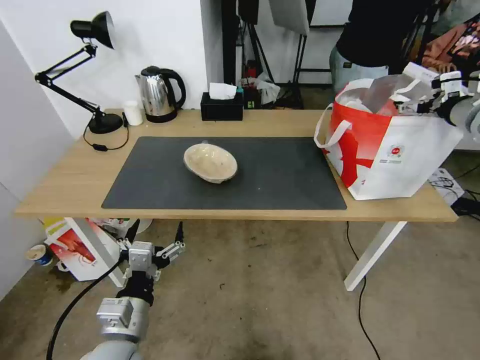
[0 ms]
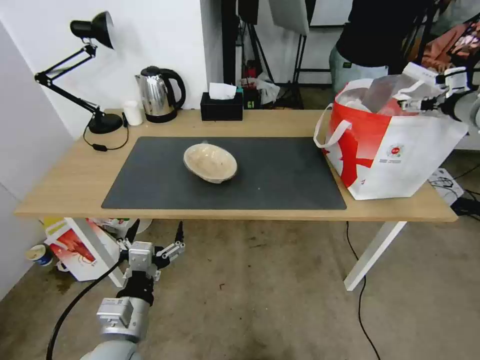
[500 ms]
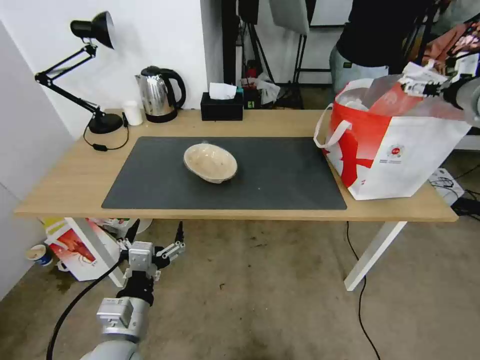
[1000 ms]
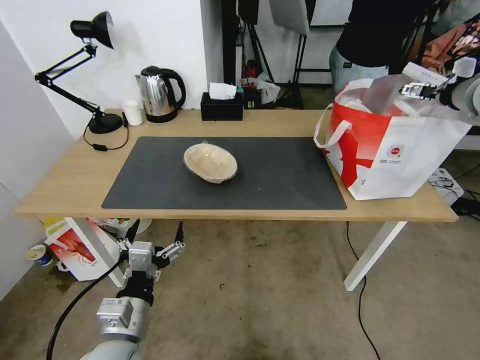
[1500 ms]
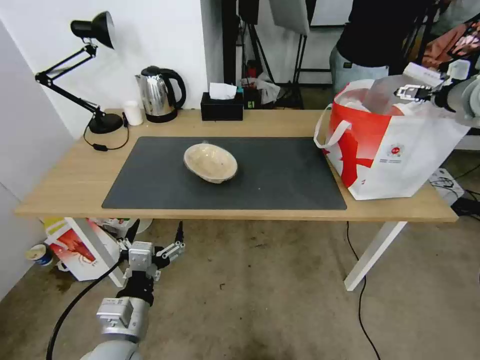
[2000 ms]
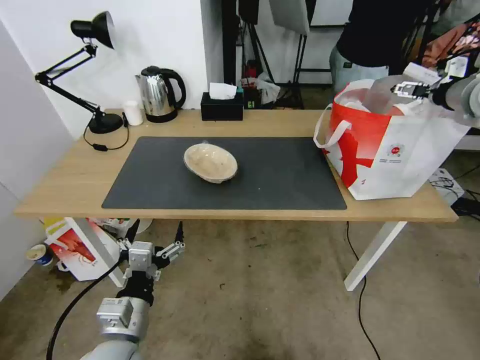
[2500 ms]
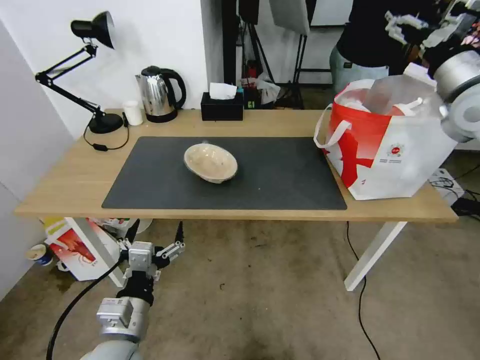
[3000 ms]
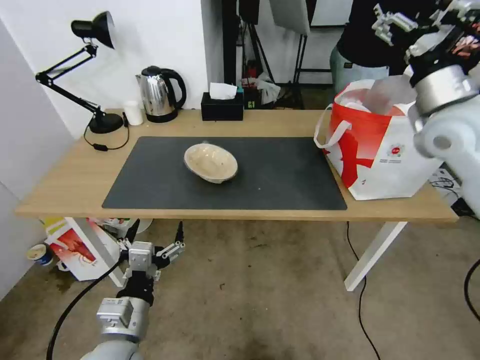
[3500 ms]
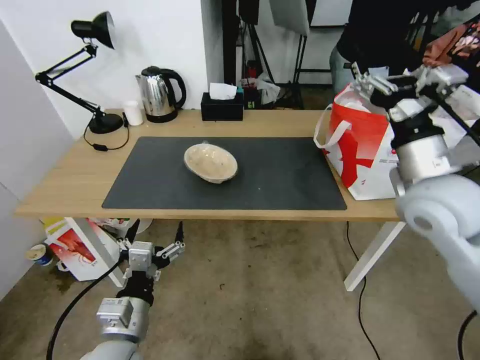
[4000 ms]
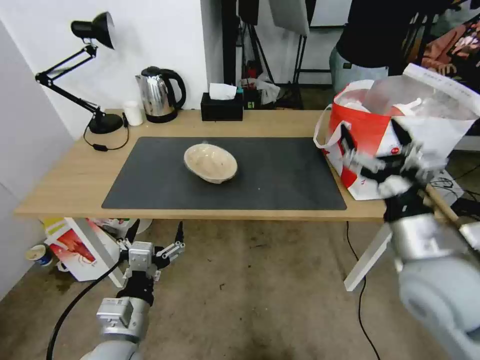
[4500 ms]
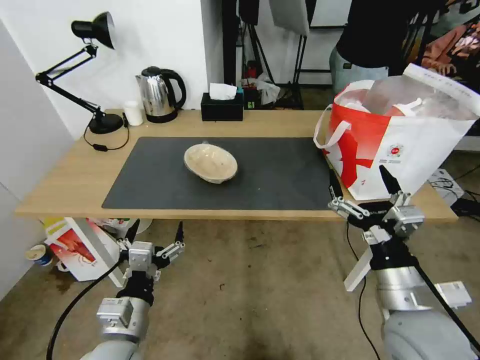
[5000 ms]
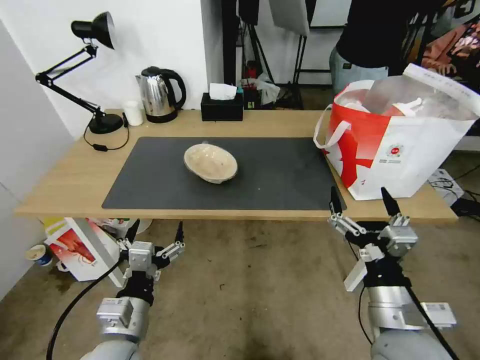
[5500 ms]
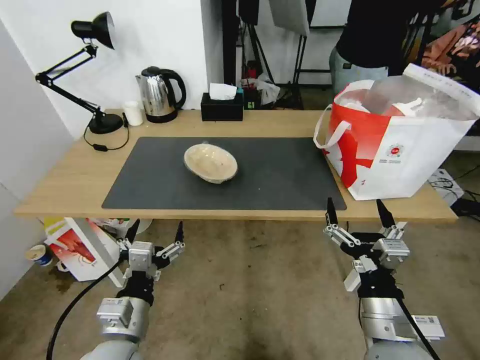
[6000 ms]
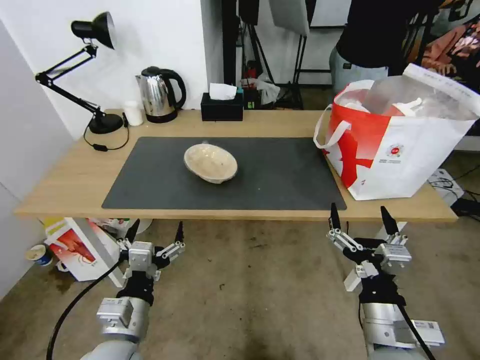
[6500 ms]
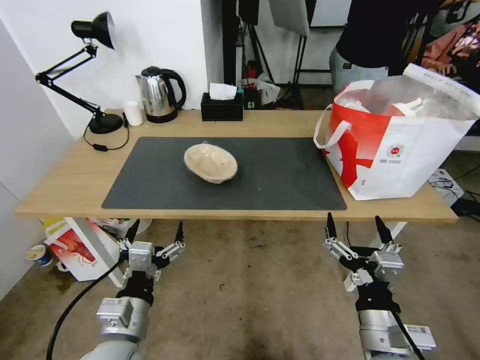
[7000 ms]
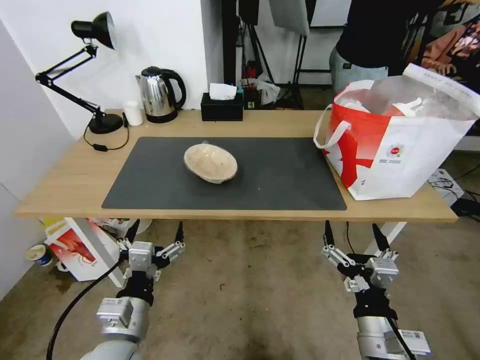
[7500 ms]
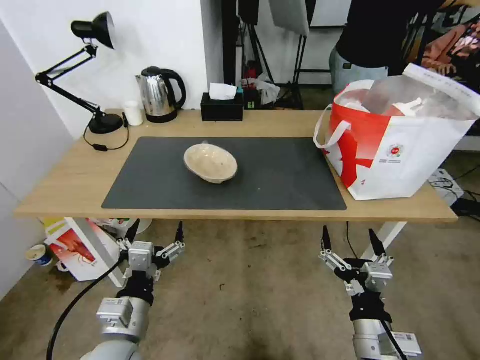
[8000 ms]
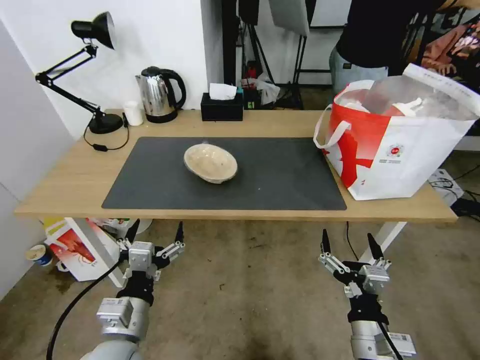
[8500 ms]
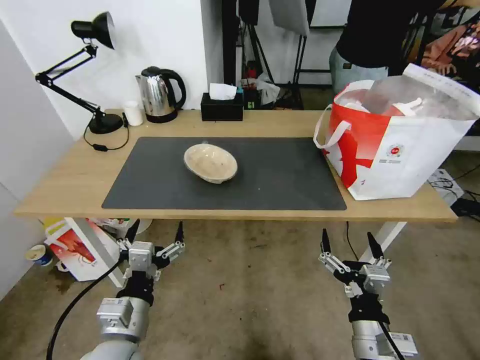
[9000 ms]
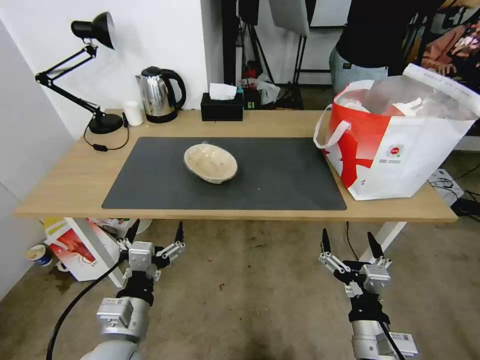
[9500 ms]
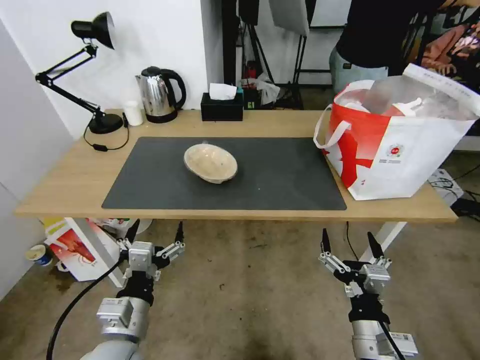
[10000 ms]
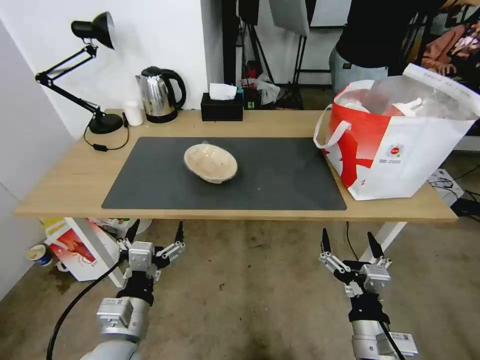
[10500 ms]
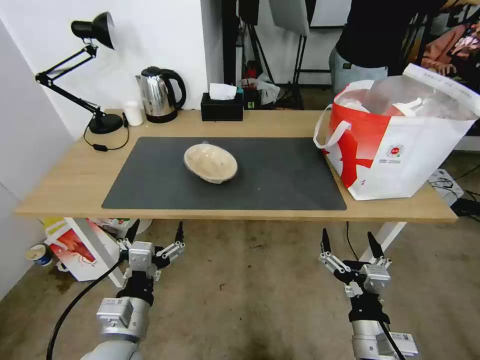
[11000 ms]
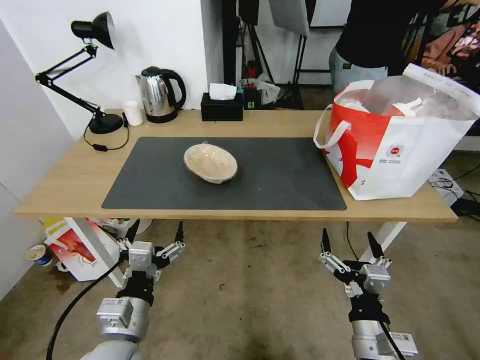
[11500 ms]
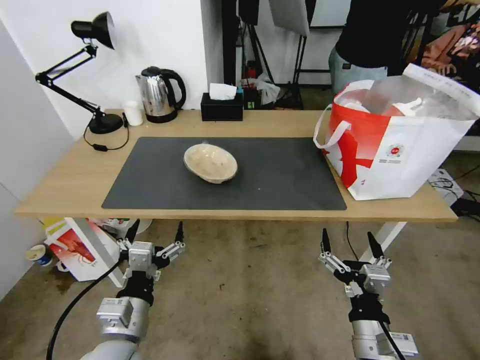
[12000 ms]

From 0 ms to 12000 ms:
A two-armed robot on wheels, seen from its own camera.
Task of the whole recording: Pick up the trash from the table and place it into the takeout bag.
From 0 ms to 2000 ms: The right gripper goes approximately 5 cm upward.
From 2000 ms to 4000 ms: The right gripper heads to the left, backward and downward, covering roughly 25 cm.
From 4000 ms to 6000 ms: The right gripper travels backward and downward by some 25 cm.
From 6000 ms to 8000 ms: The right gripper ends up roughly 5 cm from where it was.
From 8000 ms to 12000 ms: Neither gripper changes place.

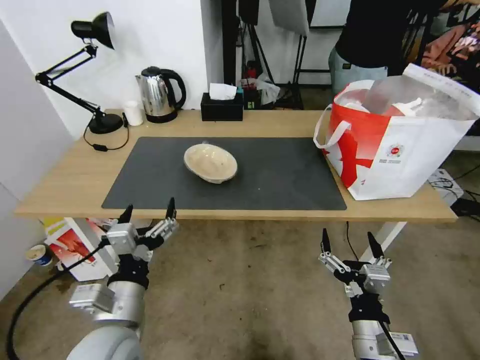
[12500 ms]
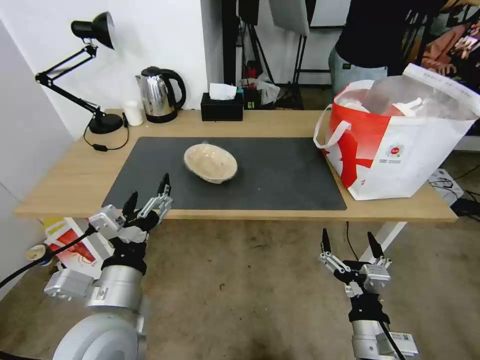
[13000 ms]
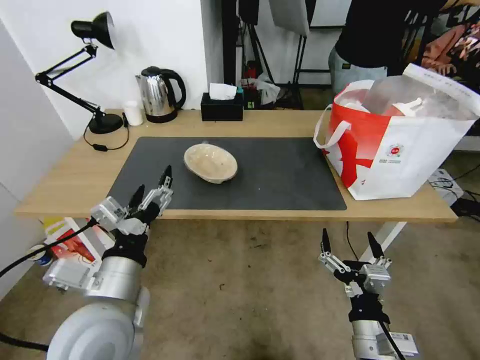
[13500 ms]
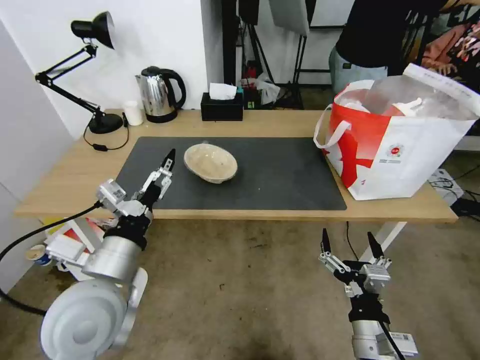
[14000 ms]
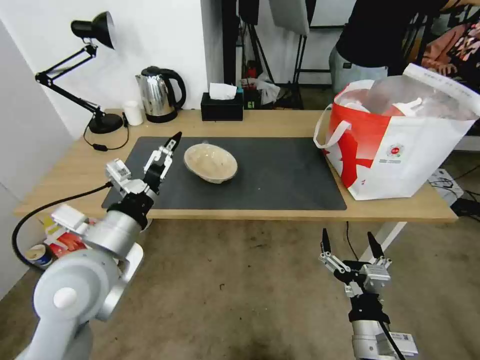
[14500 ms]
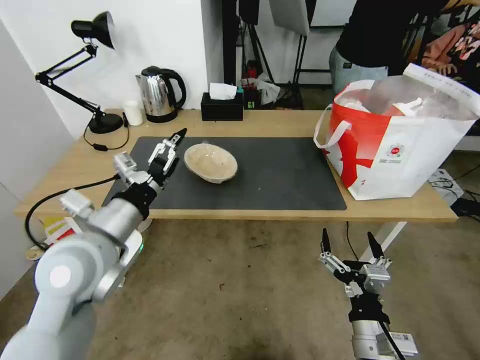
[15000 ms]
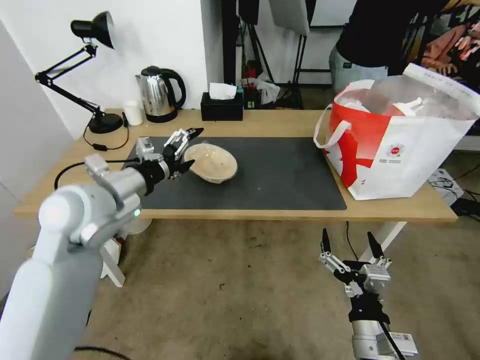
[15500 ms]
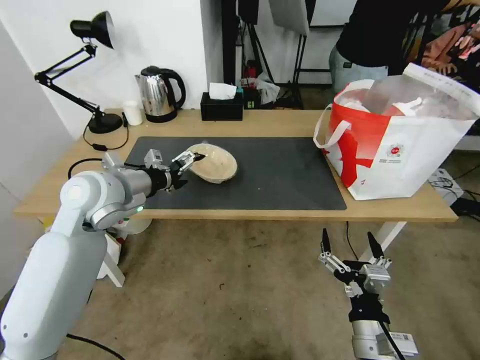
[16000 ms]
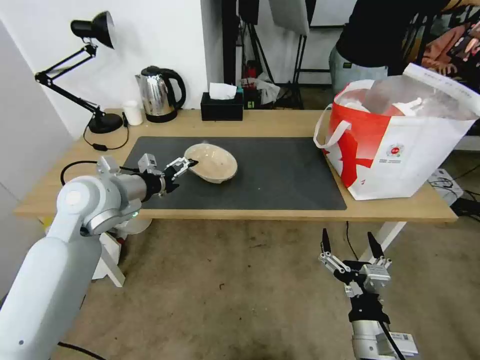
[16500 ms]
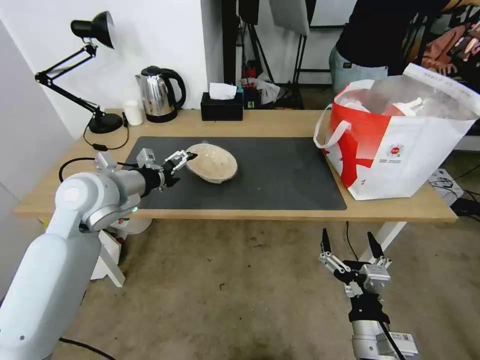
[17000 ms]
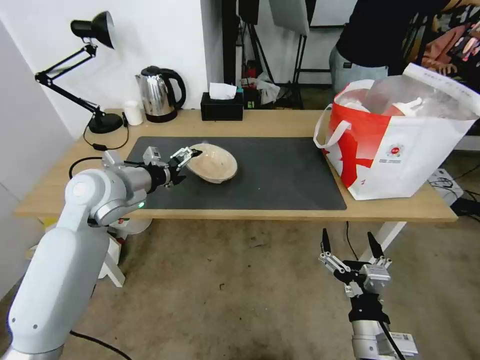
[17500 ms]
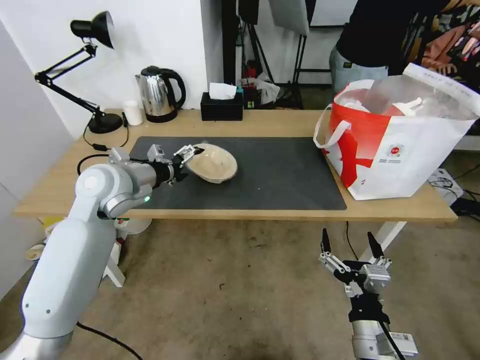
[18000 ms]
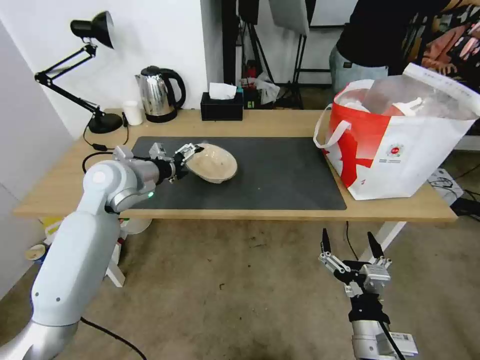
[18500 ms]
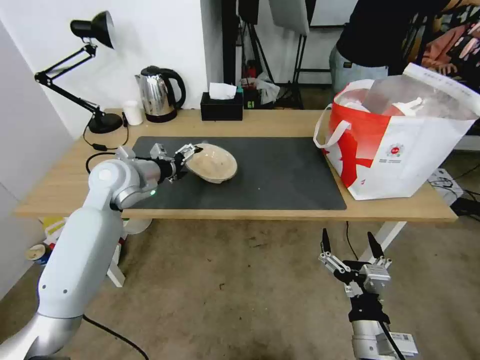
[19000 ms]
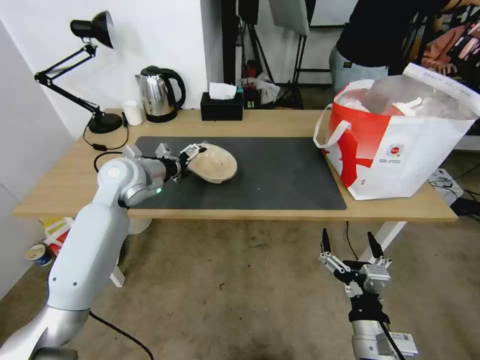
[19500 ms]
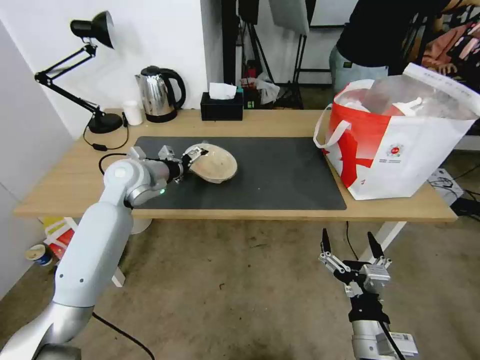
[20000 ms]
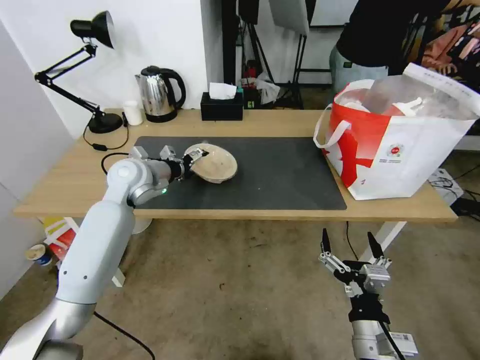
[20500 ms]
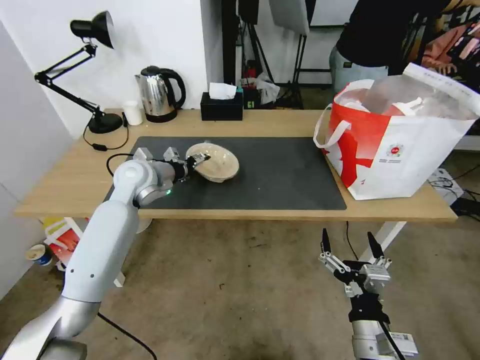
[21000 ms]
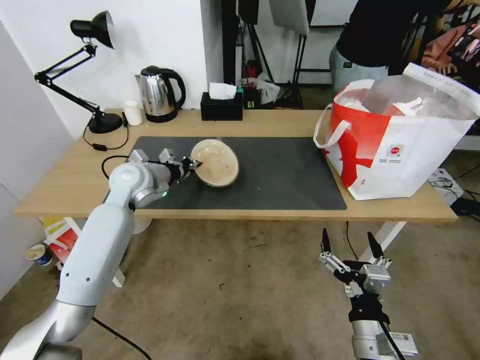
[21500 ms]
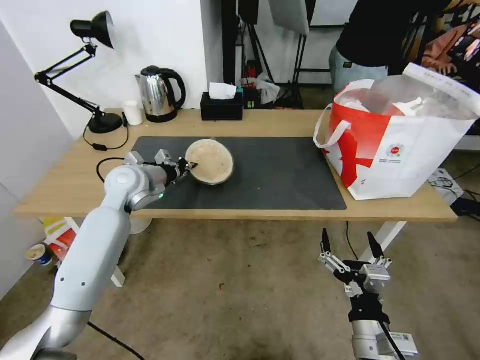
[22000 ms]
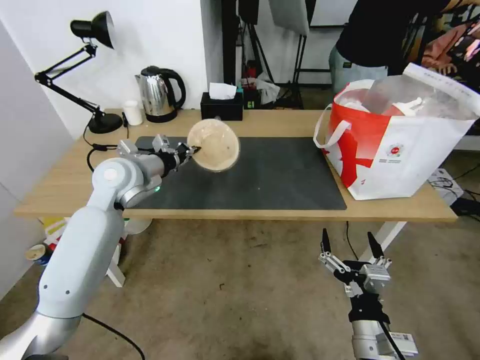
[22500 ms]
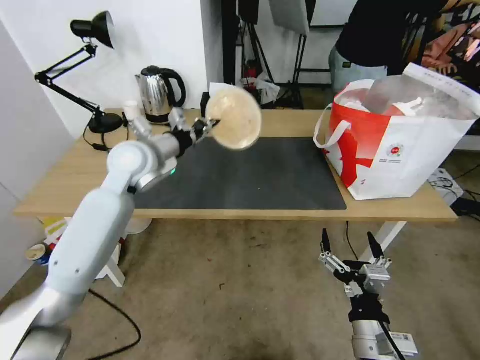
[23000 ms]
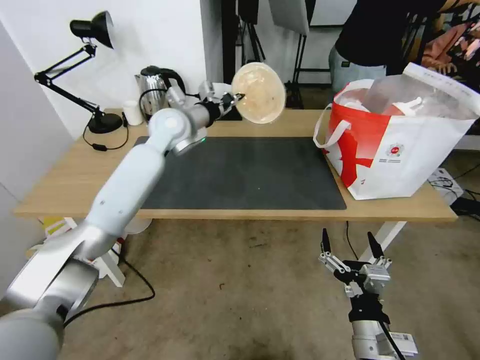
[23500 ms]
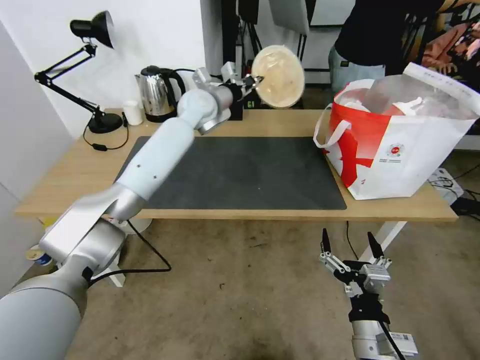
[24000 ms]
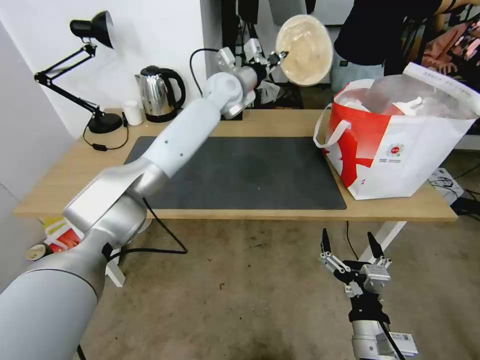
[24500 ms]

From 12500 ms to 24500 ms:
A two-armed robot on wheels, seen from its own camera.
Task of the whole recording: Pick up the trash from the table and place it into the takeout bag.
From 12500 ms to 14500 ms: The left gripper shifts some 10 cm upward and forward.
From 14500 ms to 16500 ms: The left gripper travels forward by some 15 cm.
From 16500 ms to 18500 ms: The left gripper is displaced forward by about 5 cm.
From 18500 ms to 20500 ms: The left gripper shifts by roughly 5 cm.
From 20500 ms to 22500 ms: The left gripper closes up.
From 22500 ms to 24500 ms: The left gripper heads to the right, forward and upward, covering roughly 30 cm.

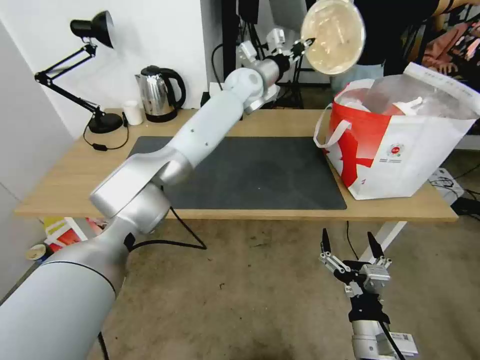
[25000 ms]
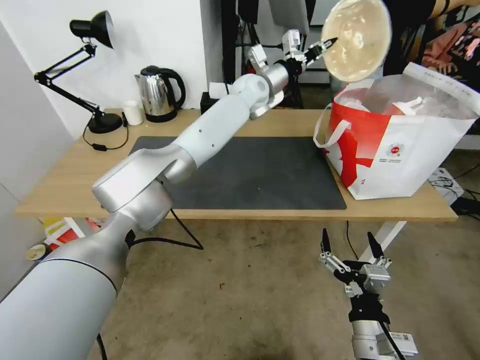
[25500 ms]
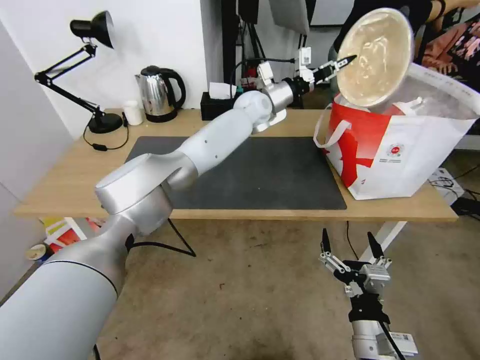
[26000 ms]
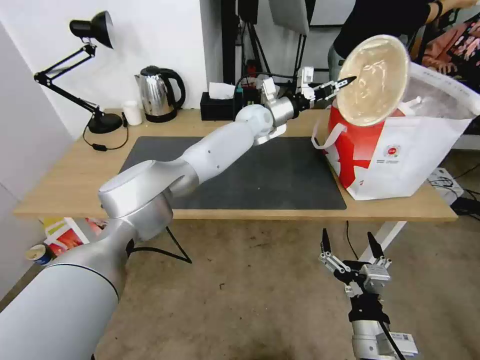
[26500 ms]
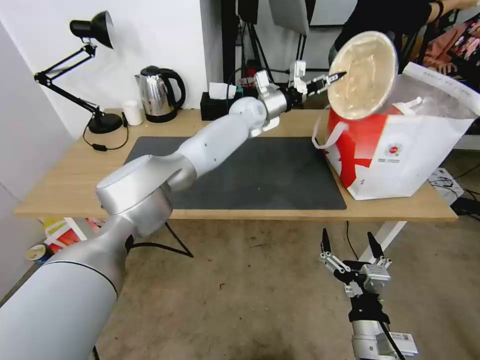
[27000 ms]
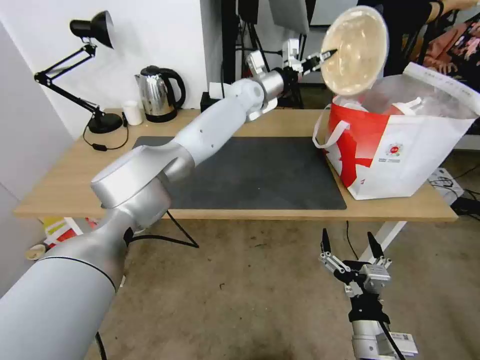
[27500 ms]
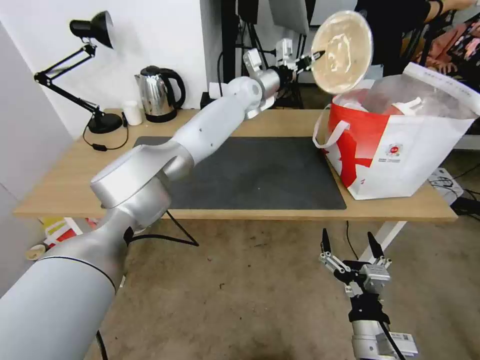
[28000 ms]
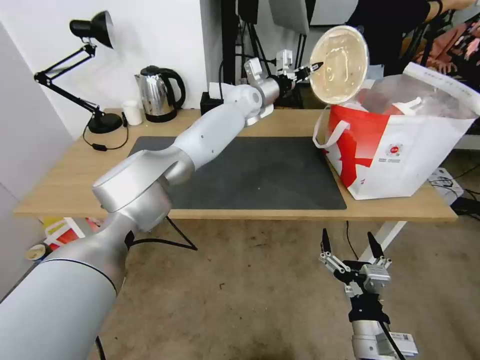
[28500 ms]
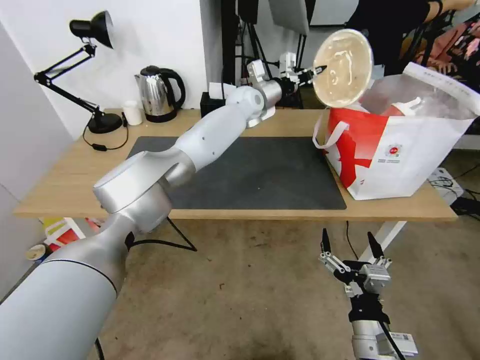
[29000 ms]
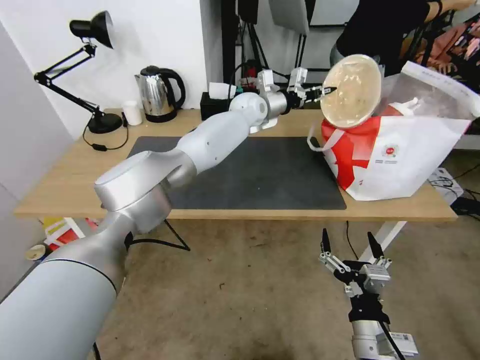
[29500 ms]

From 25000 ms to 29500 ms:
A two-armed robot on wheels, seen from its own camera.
Task of the whole recording: Pick up the trash from the table and place it into the takeout bag.
From 25000 ms to 27000 ms: The left gripper shifts about 10 cm downward.
From 27000 ms to 29500 ms: The grippers make only small movements.
